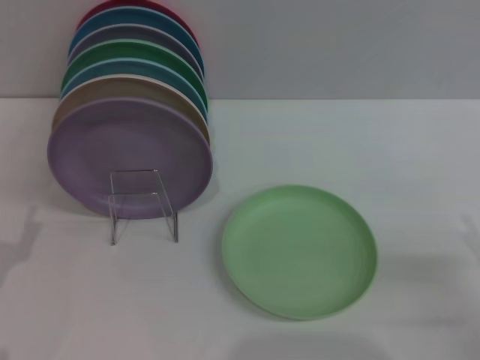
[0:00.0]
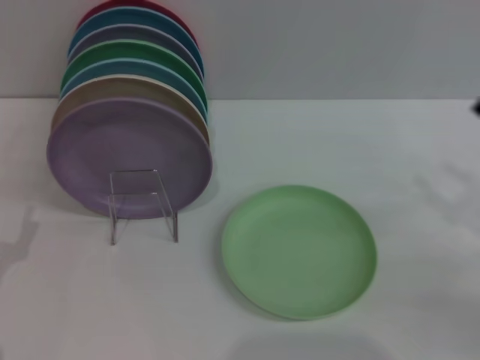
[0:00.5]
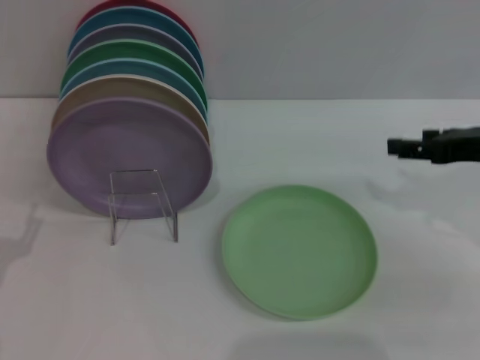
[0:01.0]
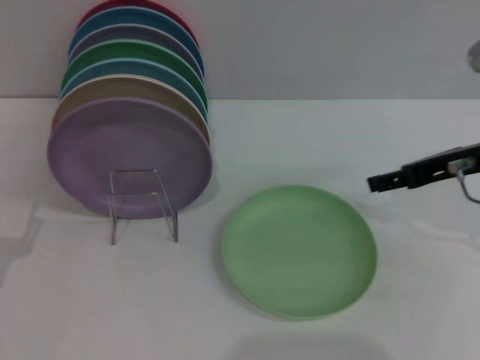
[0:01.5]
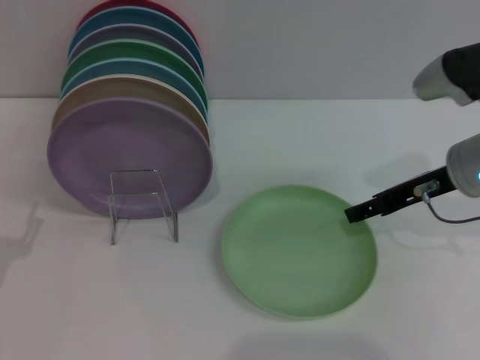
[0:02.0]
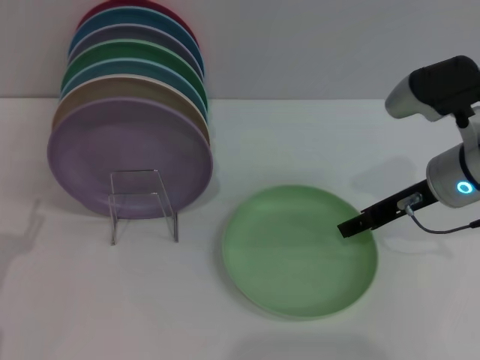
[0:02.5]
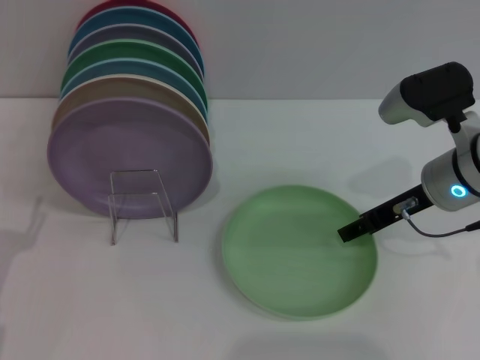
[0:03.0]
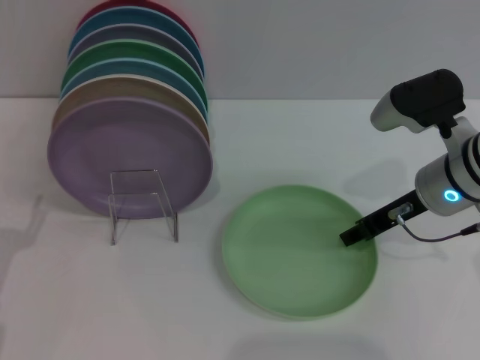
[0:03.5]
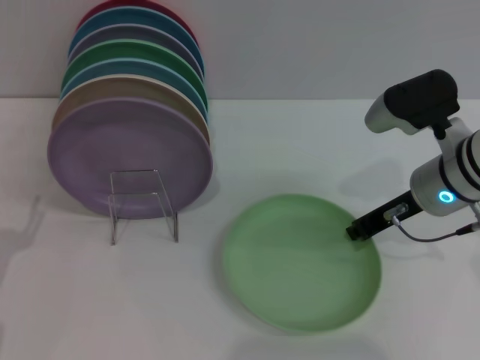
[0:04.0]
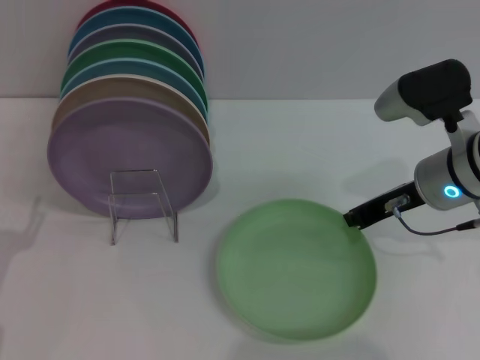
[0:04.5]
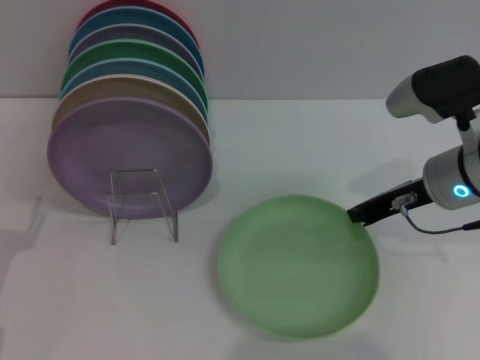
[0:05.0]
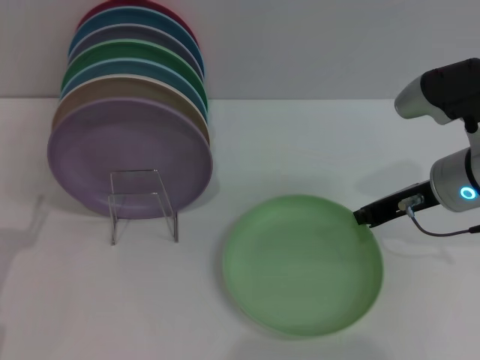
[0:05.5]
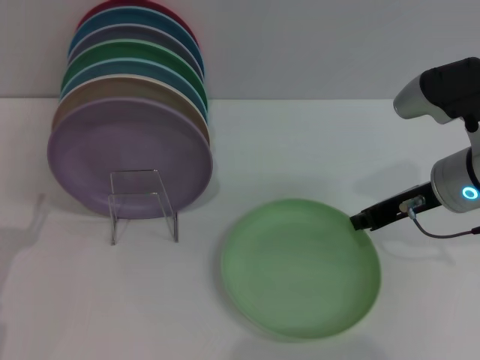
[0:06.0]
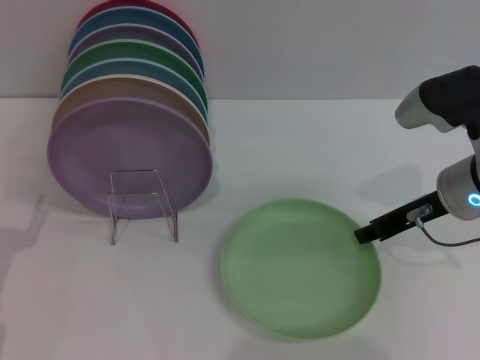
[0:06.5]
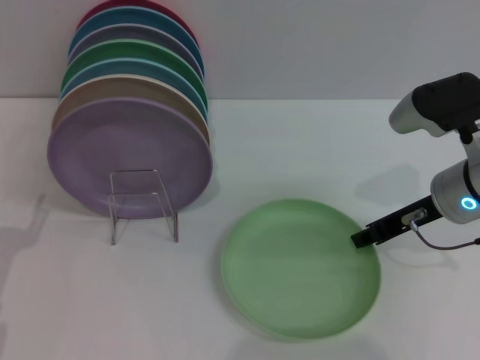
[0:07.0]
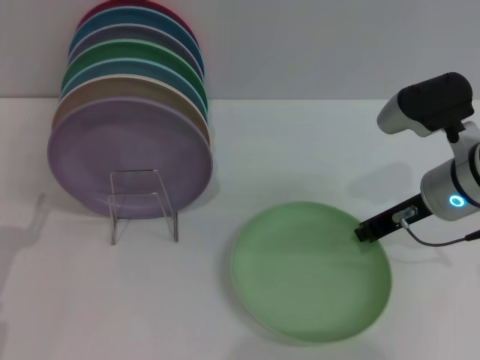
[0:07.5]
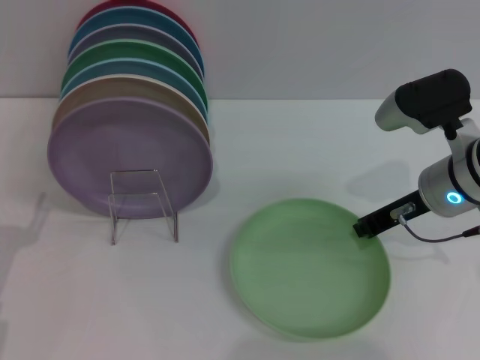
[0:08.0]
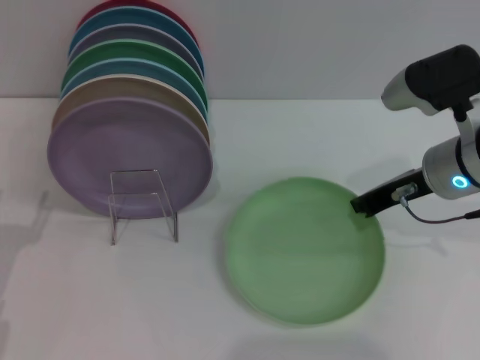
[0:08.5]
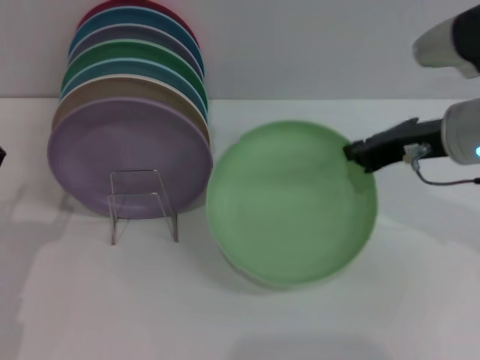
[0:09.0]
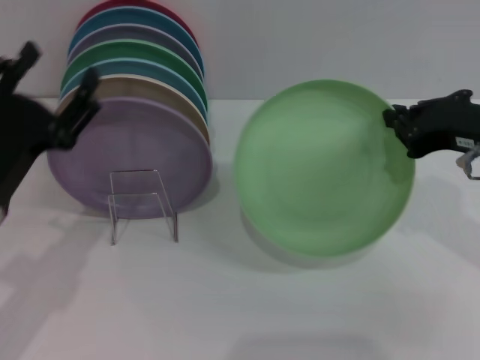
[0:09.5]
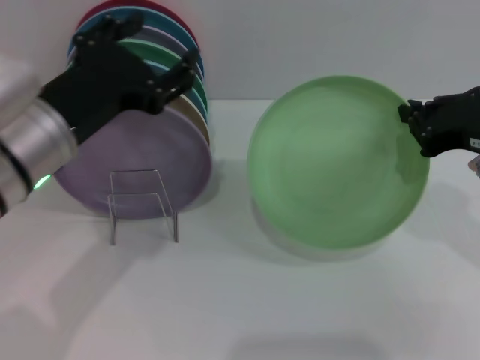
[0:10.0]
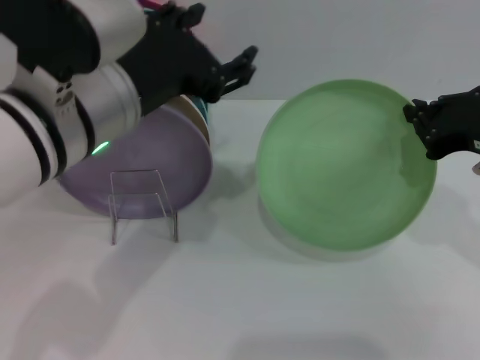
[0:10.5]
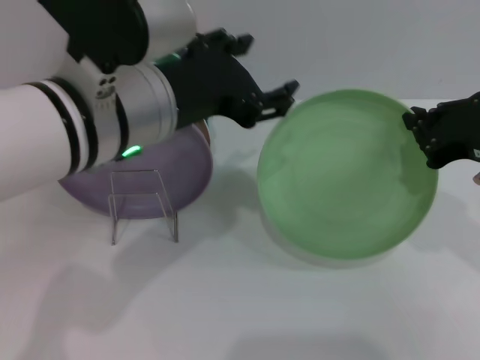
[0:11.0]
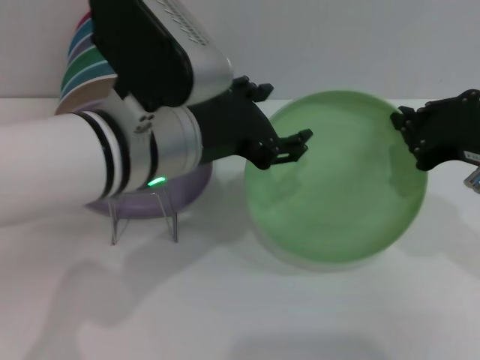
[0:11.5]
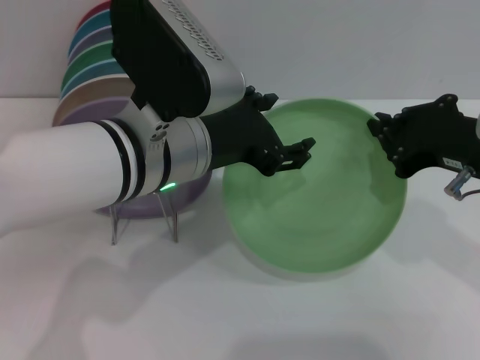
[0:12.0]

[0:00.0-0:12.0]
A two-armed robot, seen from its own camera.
Task of the whole recording: Grip the plate with one hand, pass it to the other, then set it on the shelf.
Step, 0:00.0 to 0:09.5: Pick up the plate with the right gripper.
0:00.0 to 0:02.0: The right gripper moves forward, upward and to the left, some 25 cm.
0:02.0 to 0:04.0: The right gripper closes its fingers.
0:04.0 to 0:08.0: There are only small adjustments of the grippers.
0:08.0 to 0:10.0: The left gripper shifts roughly 20 cm upward and to the right. The right gripper travels upward and backward by roughly 10 cm.
0:10.0 to 0:12.0: The left gripper travels to the right by about 10 cm.

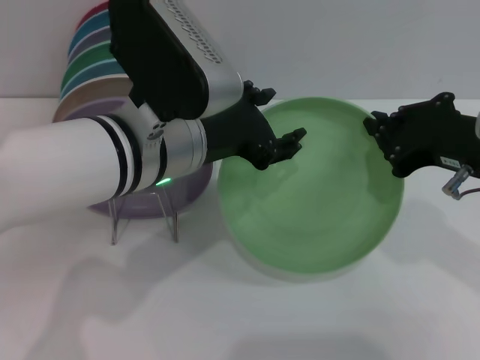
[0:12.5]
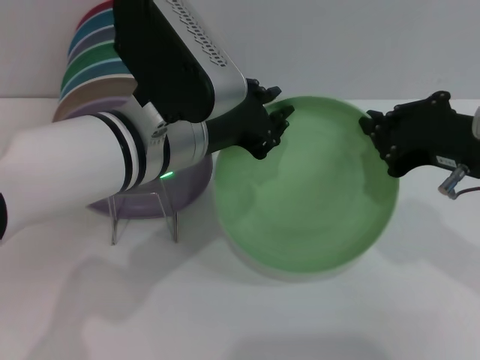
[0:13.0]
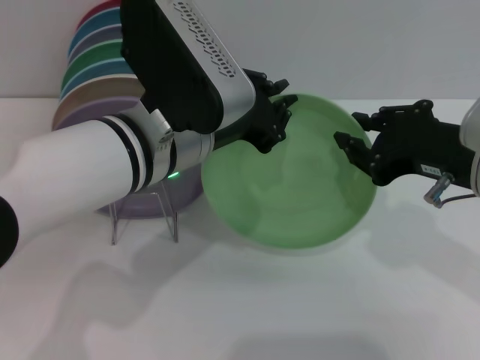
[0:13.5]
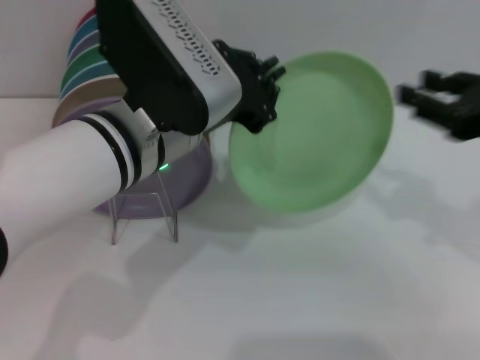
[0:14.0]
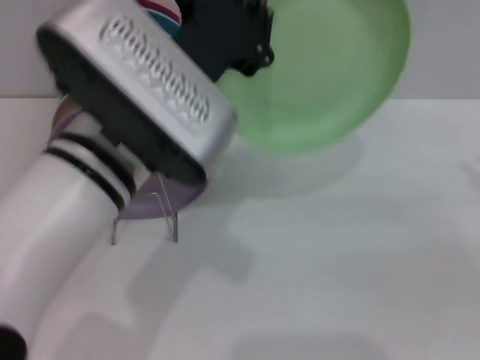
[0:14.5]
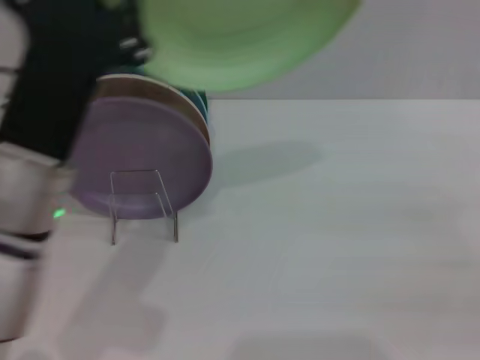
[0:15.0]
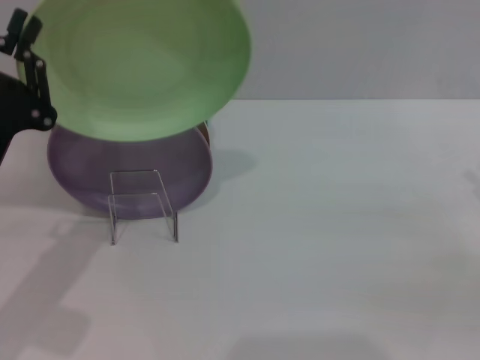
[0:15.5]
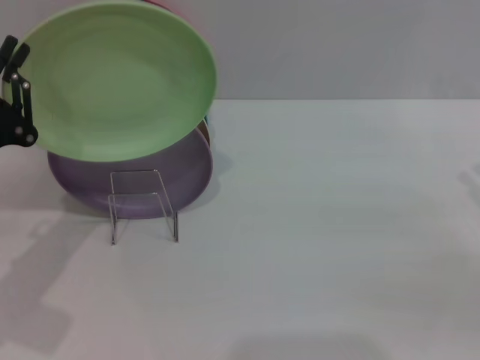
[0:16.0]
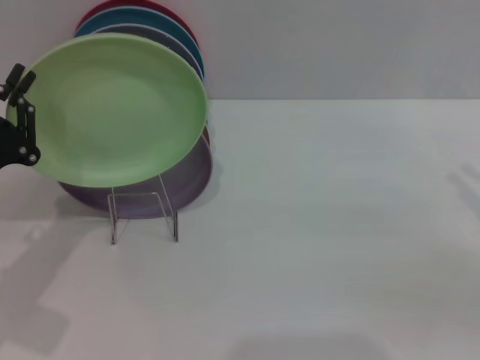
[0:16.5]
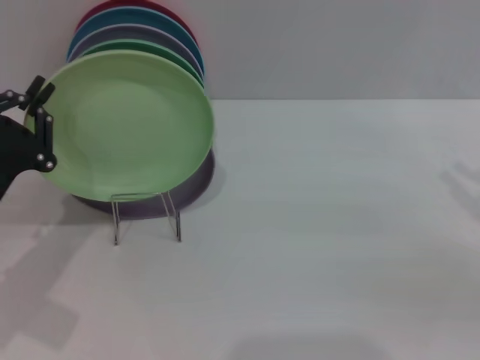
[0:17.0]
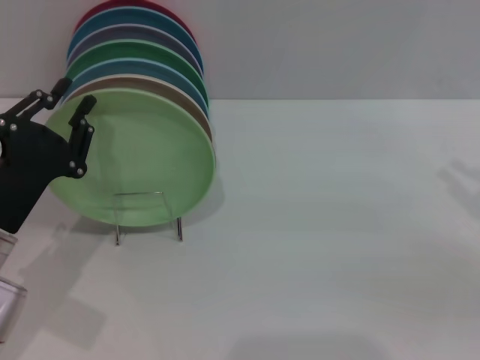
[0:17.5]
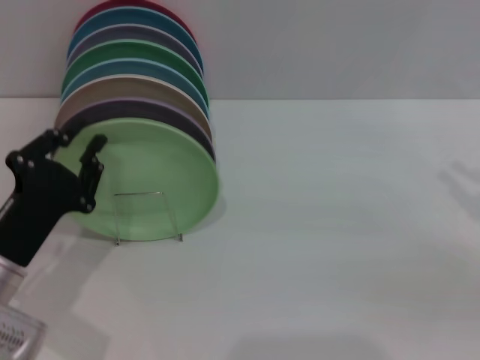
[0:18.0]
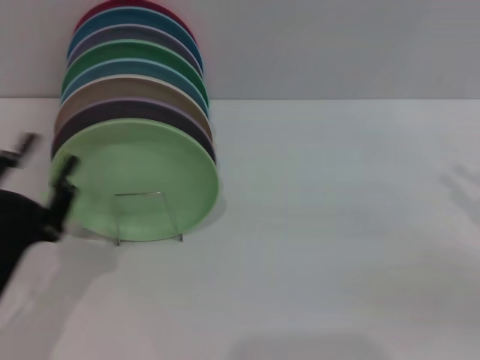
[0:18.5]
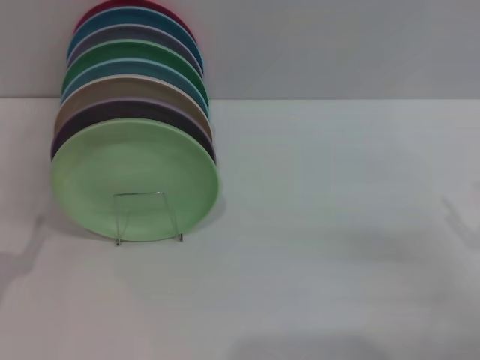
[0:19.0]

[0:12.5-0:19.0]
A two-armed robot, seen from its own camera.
Task of the whole recording: Grip the plate with one hand, pass it to the other, then set it on the shelf.
Step, 0:14.5 to 0:18.0: Place the plate on the shelf with the left gripper.
0:12.5 to 0:14.5: The right gripper shifts some 15 cm to the right, and opens its fingers. The left gripper closes.
0:14.5 to 0:17.0: The left gripper goes about 25 cm to the left and downward.
0:17.0 to 0:19.0: The left gripper shifts about 10 cm backward, and opens. The right gripper is displaced downward by about 10 cm.
